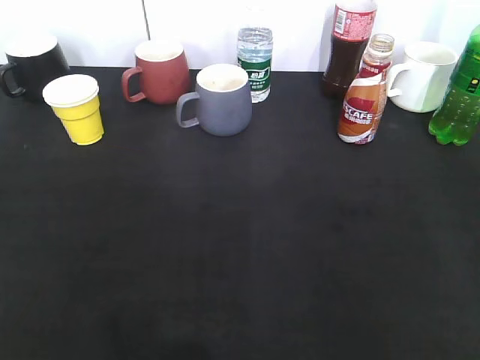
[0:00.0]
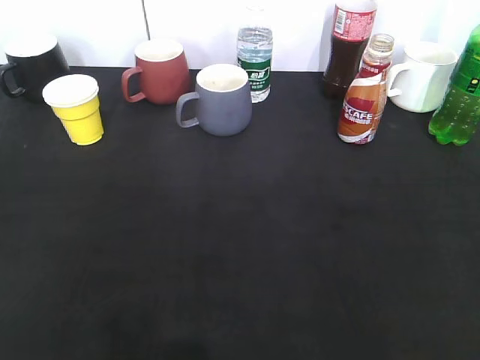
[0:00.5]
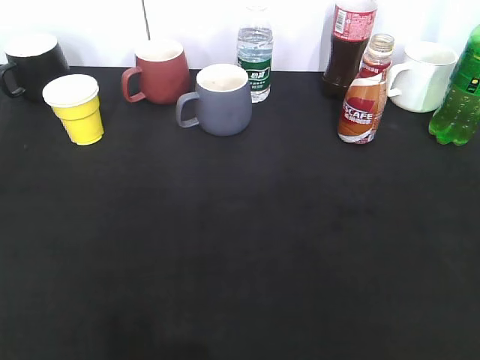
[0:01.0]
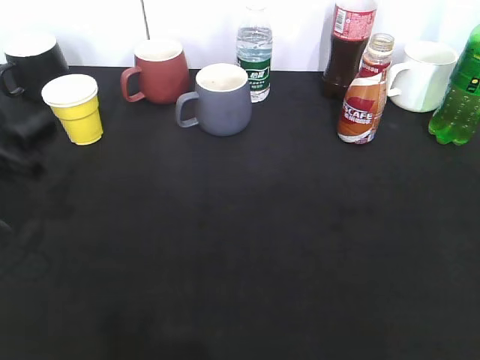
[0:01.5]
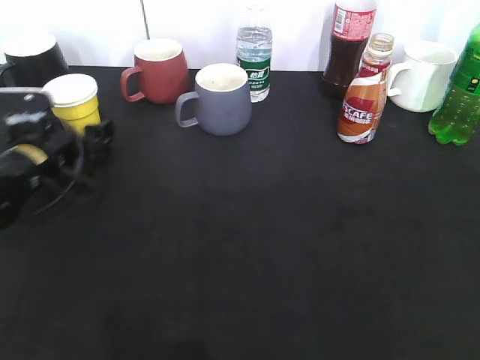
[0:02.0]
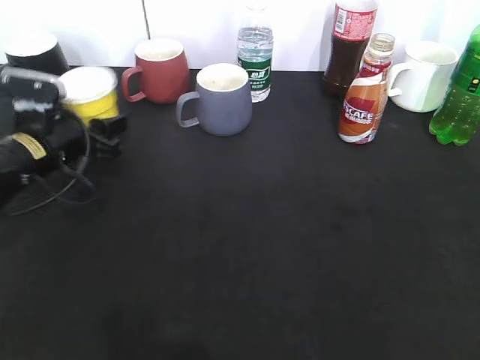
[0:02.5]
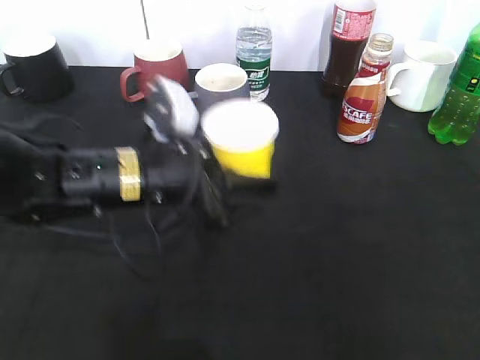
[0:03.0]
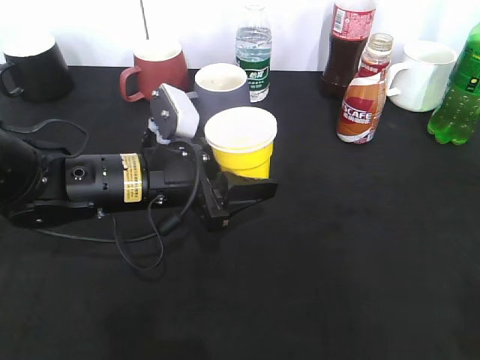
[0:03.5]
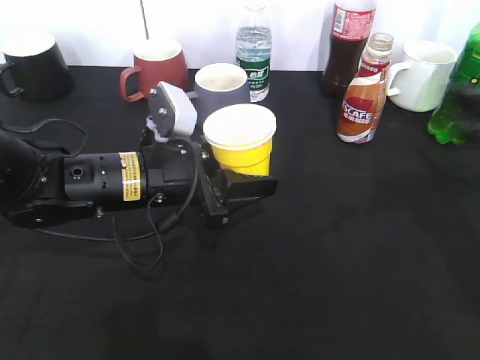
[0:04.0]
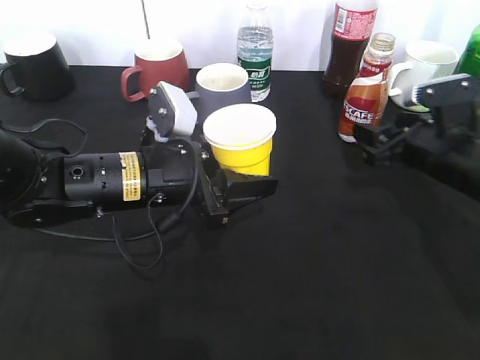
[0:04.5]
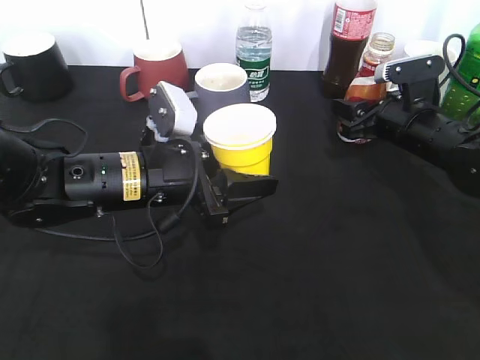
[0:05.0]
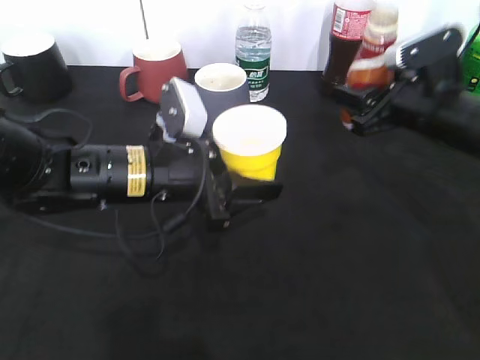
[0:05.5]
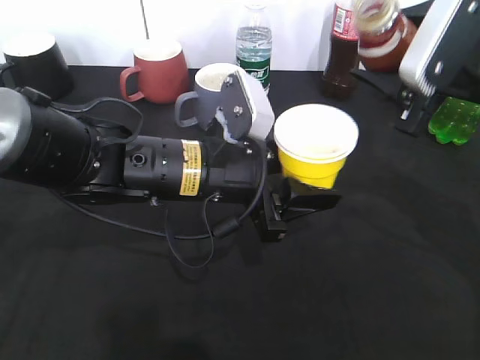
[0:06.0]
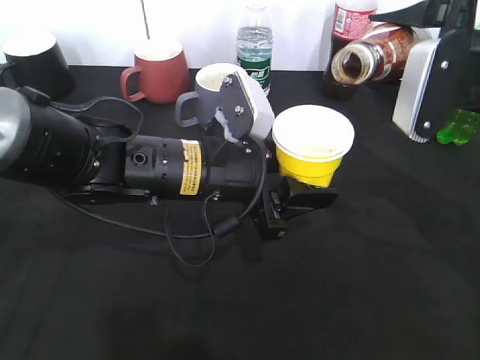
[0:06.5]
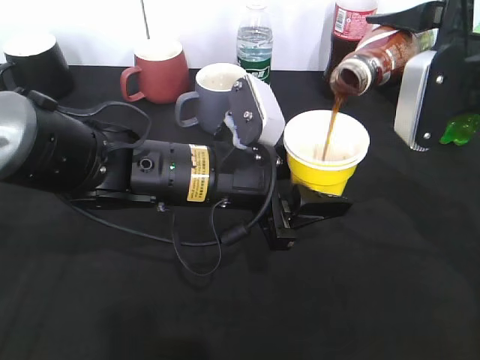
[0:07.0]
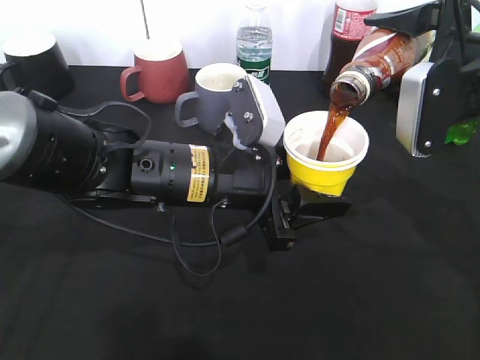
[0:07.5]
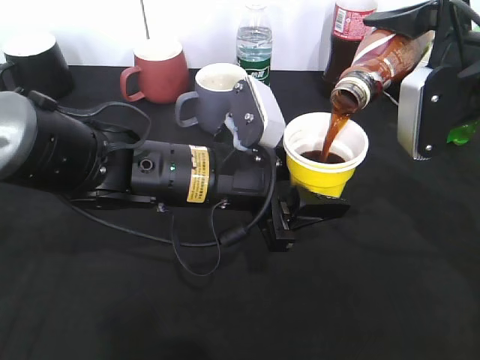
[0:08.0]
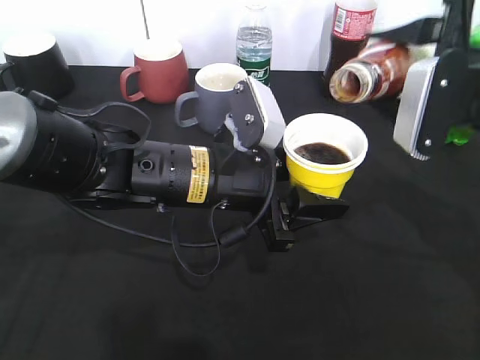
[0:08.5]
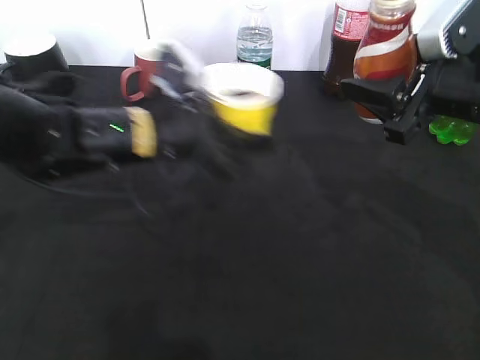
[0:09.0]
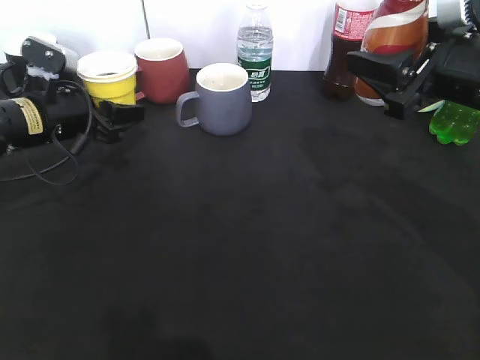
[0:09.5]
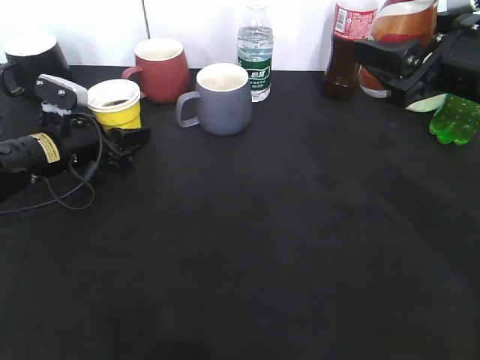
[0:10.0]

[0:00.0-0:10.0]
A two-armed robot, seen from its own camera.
Step, 0:01.5 to 0:02.0: Grasp the yellow paper cup with left gripper.
Step, 0:02.5 to 0:03.5: Lift the yellow paper cup with left gripper.
Step, 0:04.0 to 0:05.0: Grasp the bottle with coffee with right gripper.
Step, 0:05.5 to 0:08.5: Pour the coffee from bottle to cup with right gripper.
0:00.0 to 0:02.0: The left gripper moves forward and downward, approximately 40 cm, and opens.
0:02.0 to 0:04.0: The left gripper moves to the right and backward, approximately 20 cm, and closes. The right gripper shifts approximately 25 cm forward.
0:04.0 to 0:06.0: The right gripper goes roughly 10 cm to the left and forward, and closes its fingers; the left gripper moves to the right, about 5 cm.
0:08.0 to 0:10.0: The left gripper moves to the left and forward, about 25 cm.

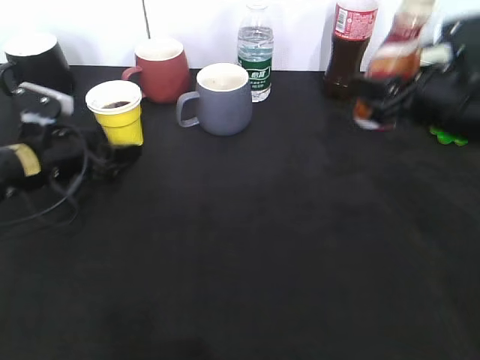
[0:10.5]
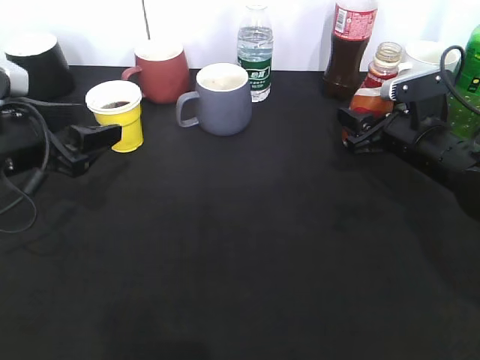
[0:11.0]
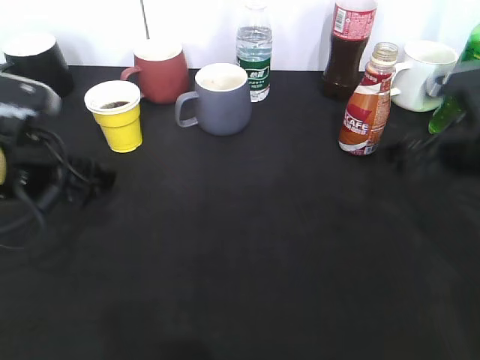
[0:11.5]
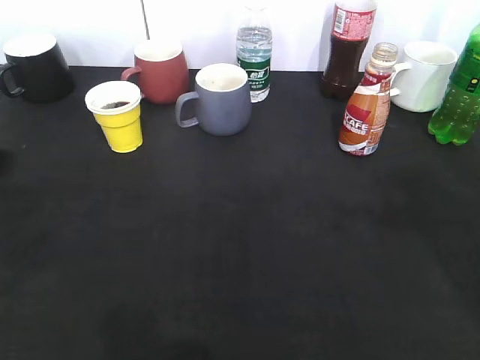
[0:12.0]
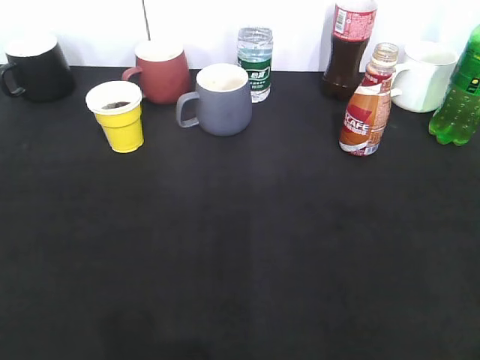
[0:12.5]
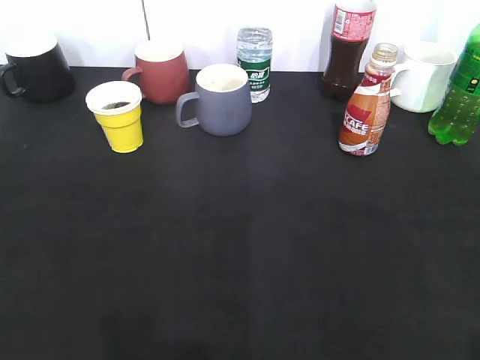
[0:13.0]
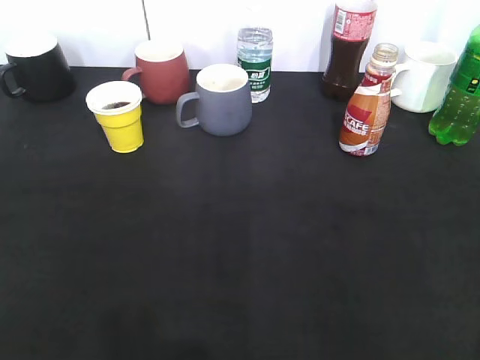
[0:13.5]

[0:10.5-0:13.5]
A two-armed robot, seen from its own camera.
Step, 0:10.5 to 0:11.0: Place the coffee bottle on the table with right gripper.
0:10.5 to 0:12.0: The two grippers go about 25 cm upward and backward. The right gripper opens up.
0:12.0 to 0:13.5: The left gripper goes roughly 15 cm backward and to the left. Meanwhile the right gripper goes approximately 15 cm backward.

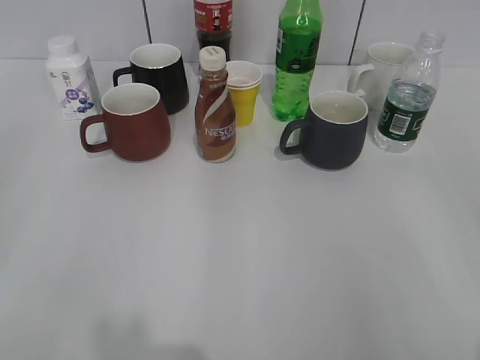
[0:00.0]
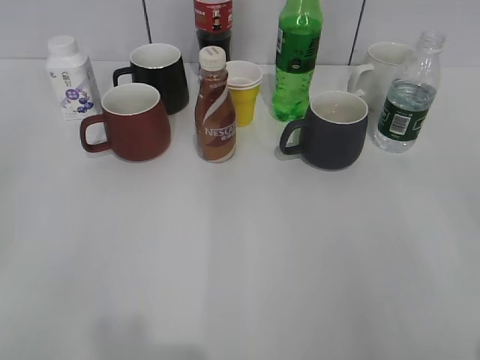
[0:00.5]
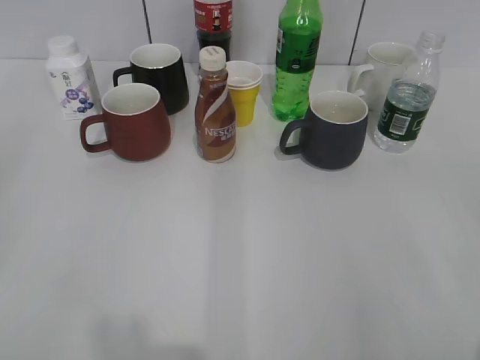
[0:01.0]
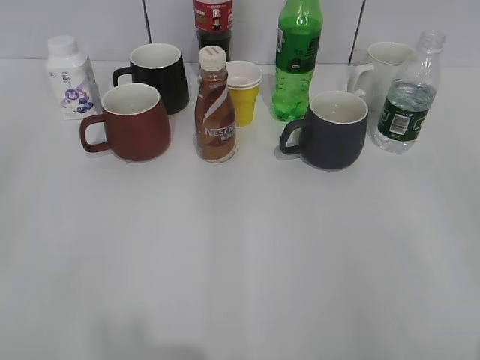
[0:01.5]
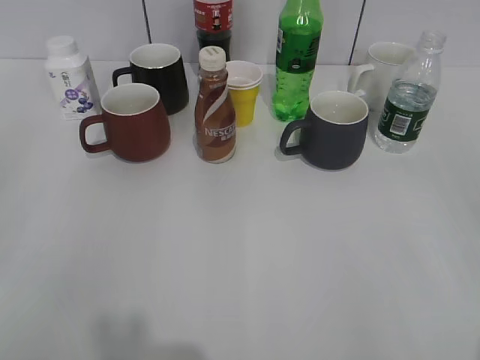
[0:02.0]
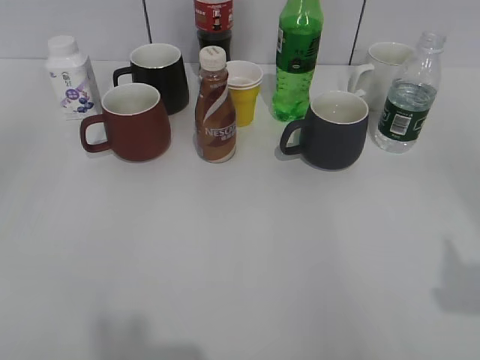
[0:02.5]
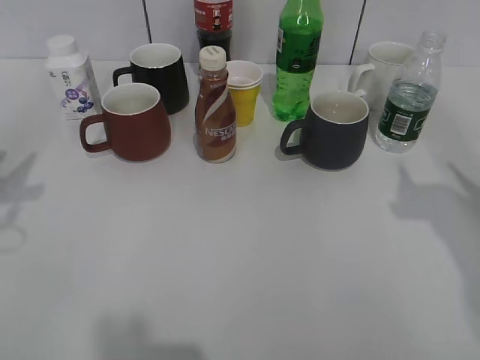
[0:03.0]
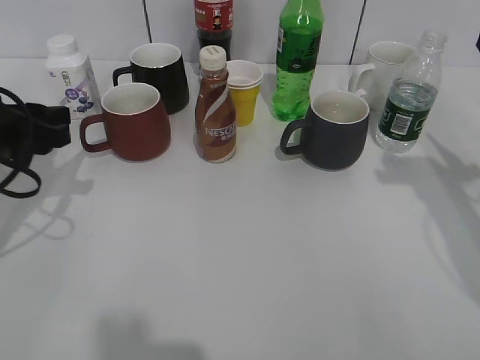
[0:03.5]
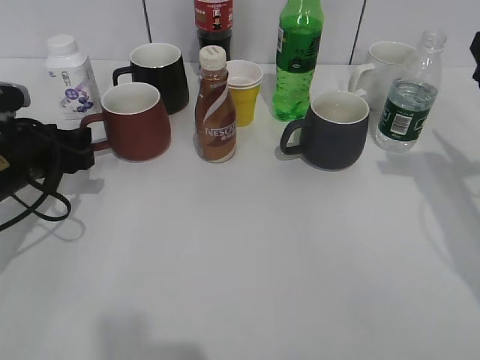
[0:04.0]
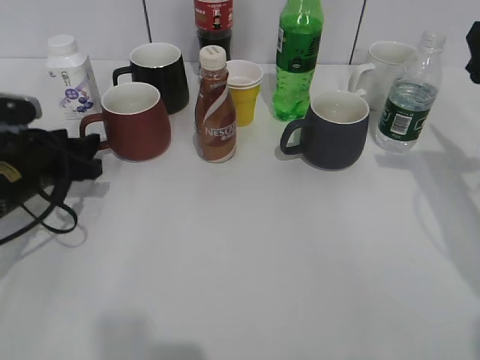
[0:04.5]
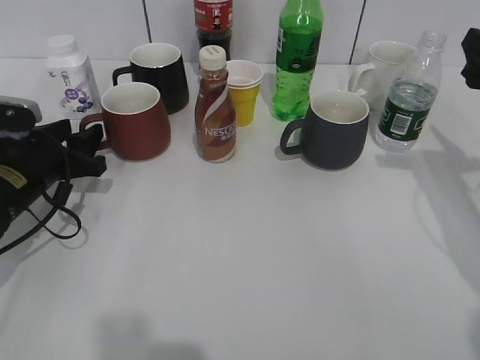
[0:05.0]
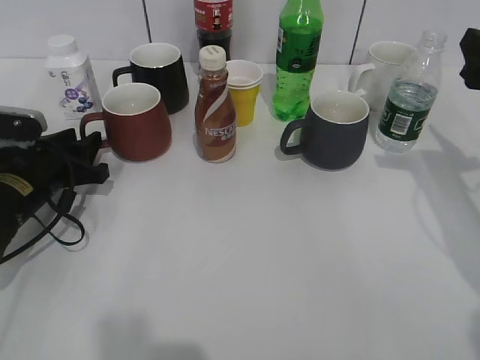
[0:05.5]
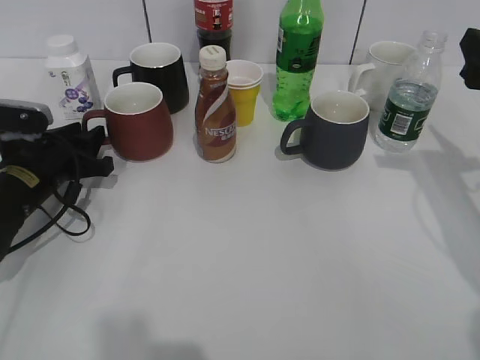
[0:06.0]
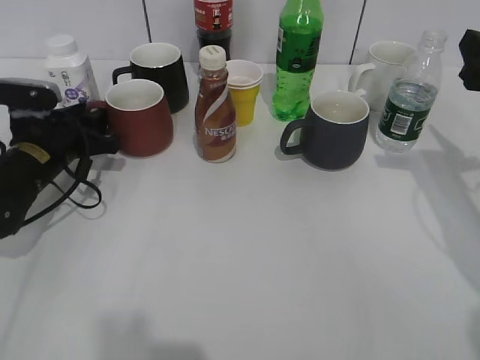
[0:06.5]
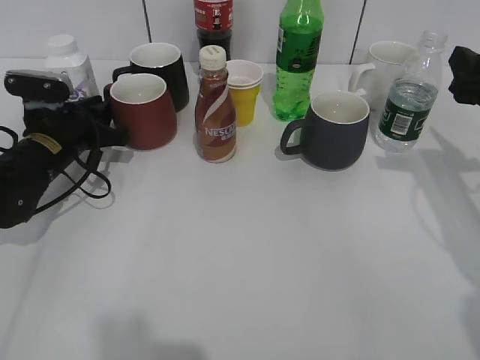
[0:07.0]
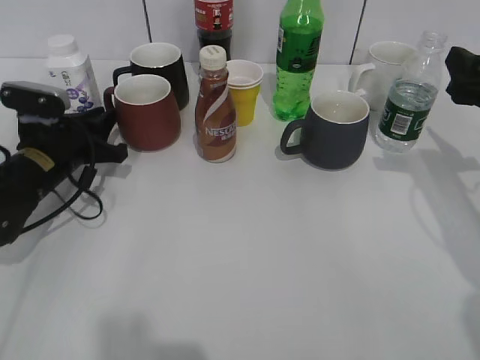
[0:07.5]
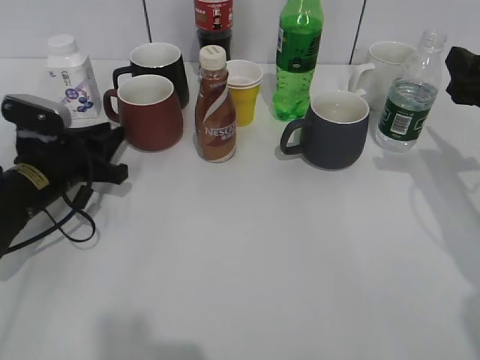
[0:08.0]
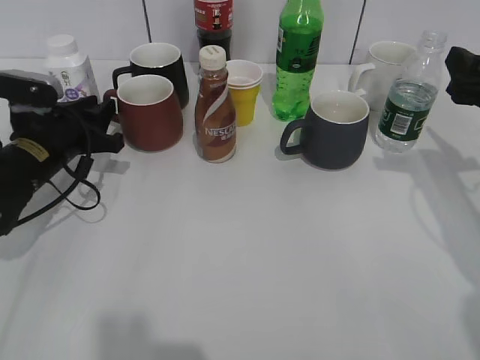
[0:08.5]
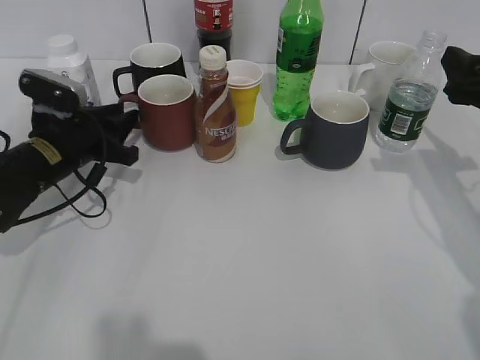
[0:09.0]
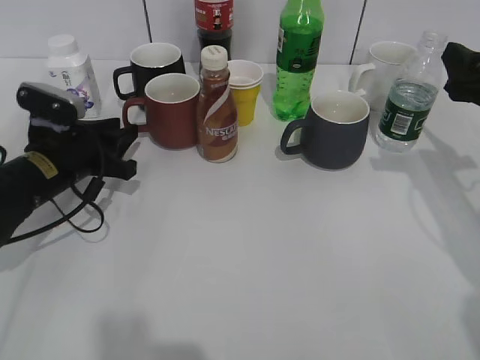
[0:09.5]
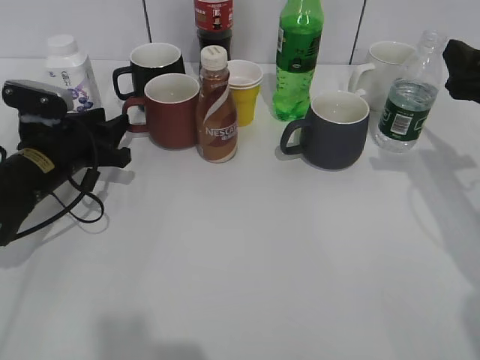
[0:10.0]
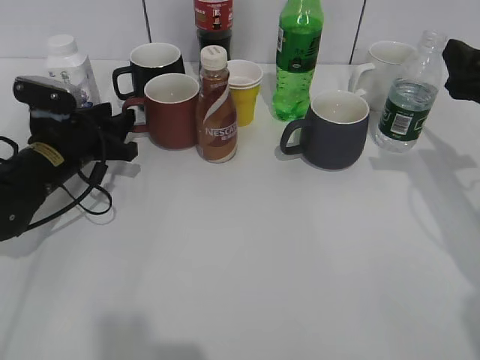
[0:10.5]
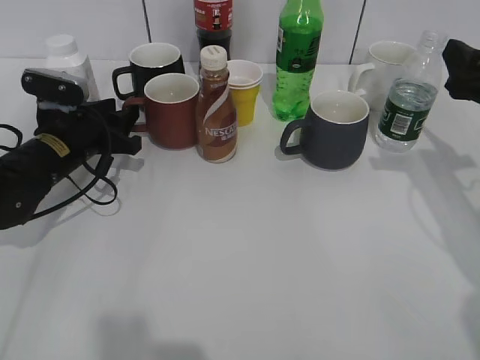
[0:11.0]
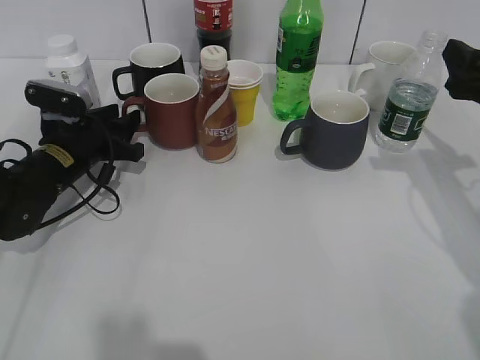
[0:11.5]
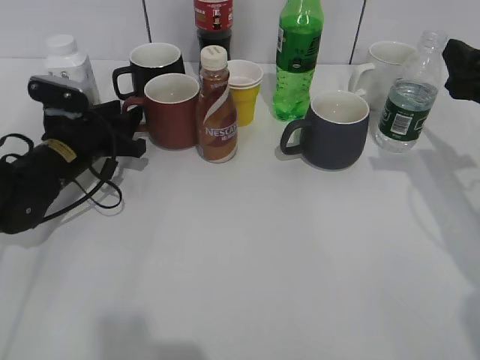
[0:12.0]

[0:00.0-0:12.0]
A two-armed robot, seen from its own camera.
0:02.0 to 0:04.0: The right gripper heads forward, covering approximately 25 cm. Meanwhile the left gripper travels forward and downward by about 35 cm, and opens.
0:04.0 to 0:06.0: The grippers stay close to where they were, moving slightly.
0:06.0 to 0:08.0: The grippers move only a little.
0:08.0 to 0:10.0: The left gripper opens up.
0:10.0 to 0:12.0: There are only small adjustments of the grippers.
